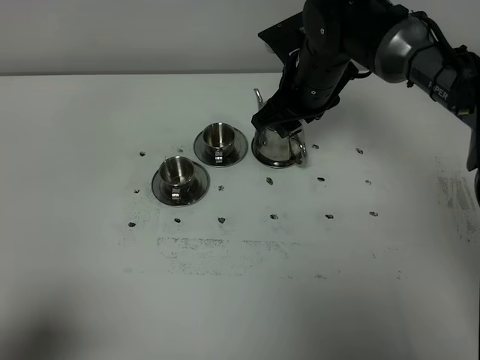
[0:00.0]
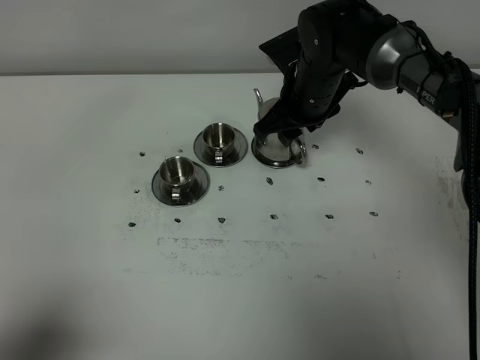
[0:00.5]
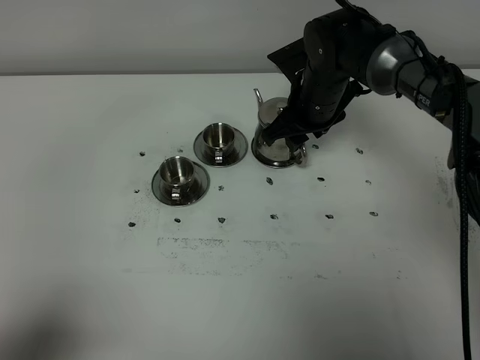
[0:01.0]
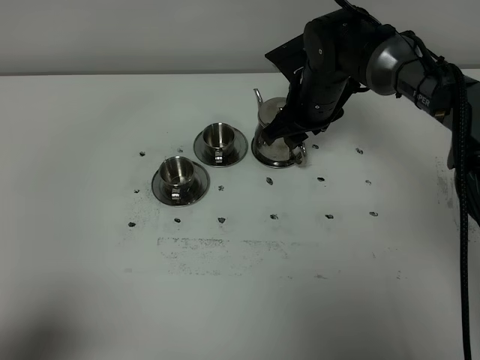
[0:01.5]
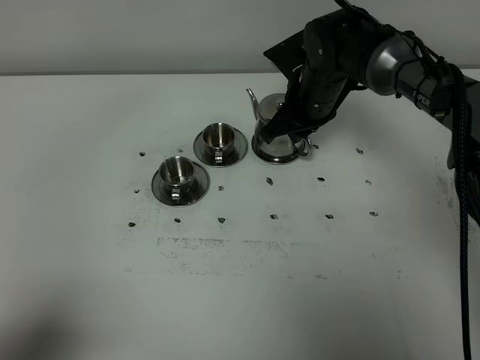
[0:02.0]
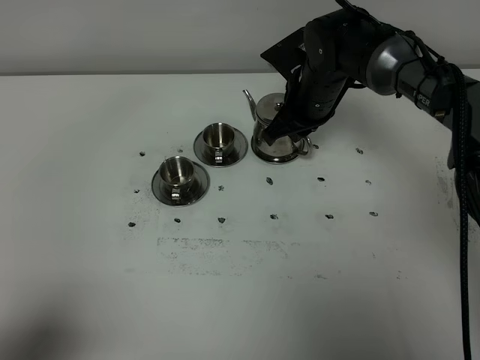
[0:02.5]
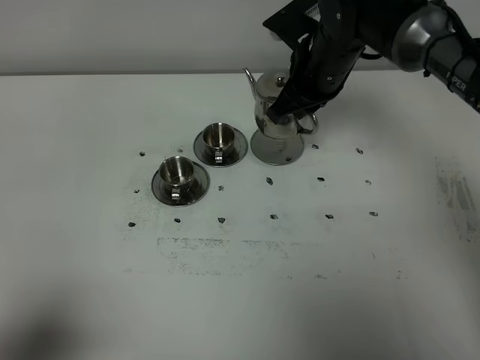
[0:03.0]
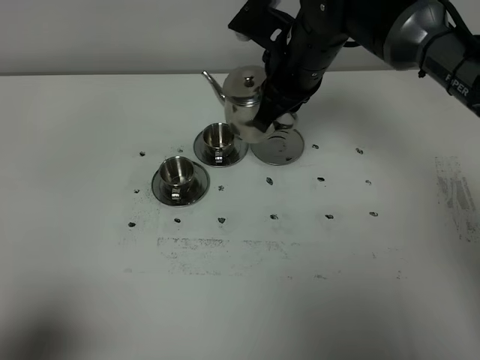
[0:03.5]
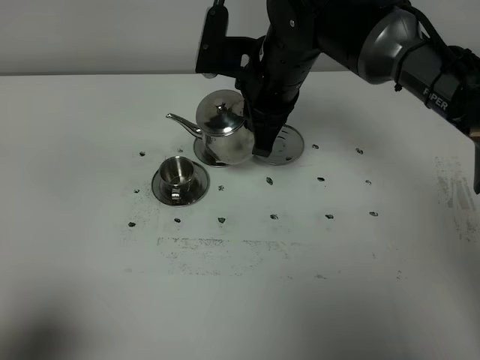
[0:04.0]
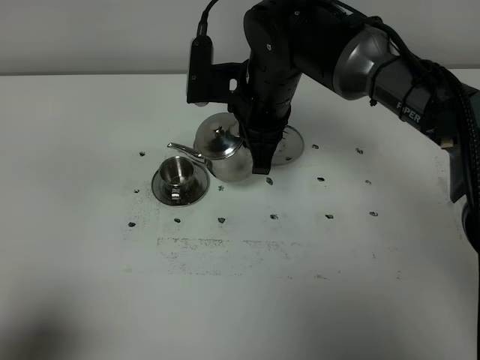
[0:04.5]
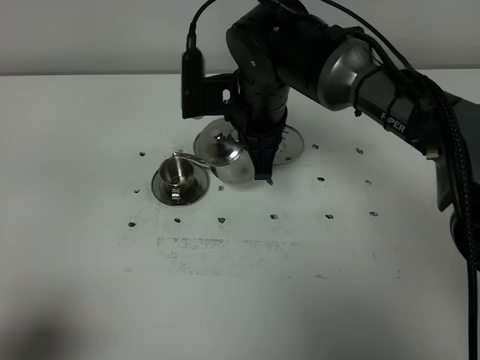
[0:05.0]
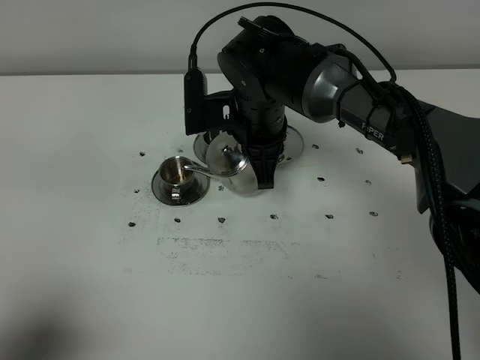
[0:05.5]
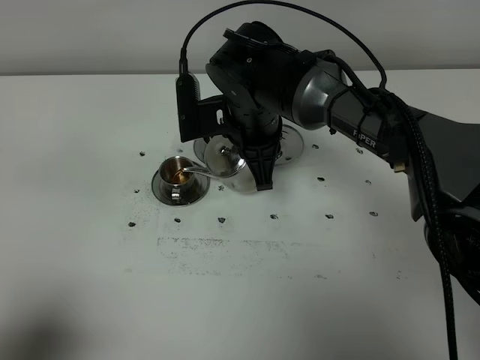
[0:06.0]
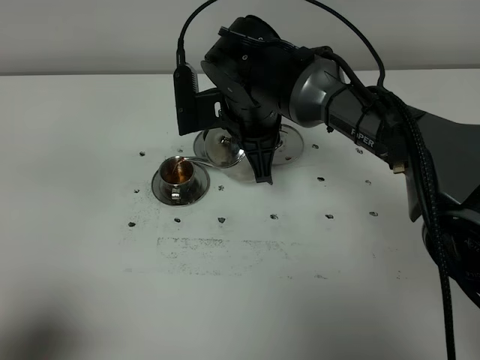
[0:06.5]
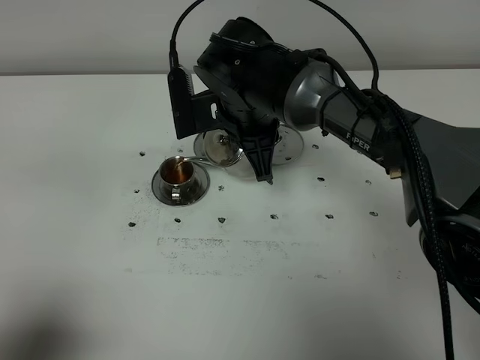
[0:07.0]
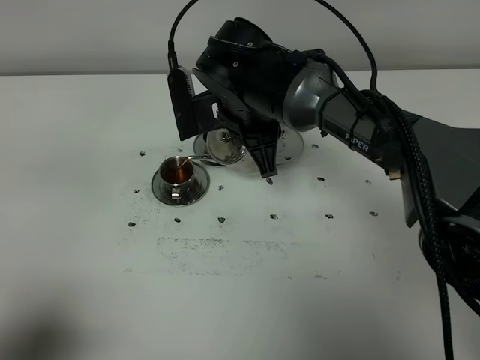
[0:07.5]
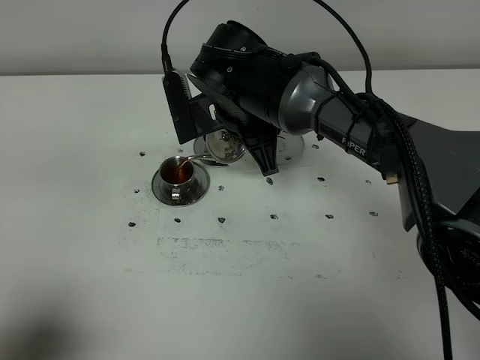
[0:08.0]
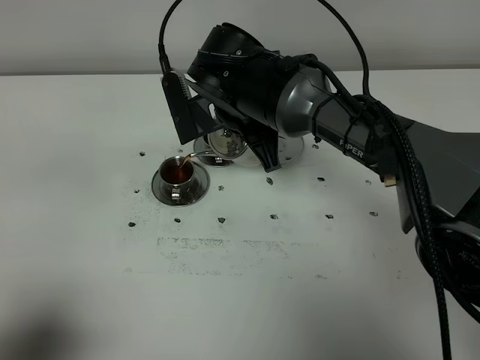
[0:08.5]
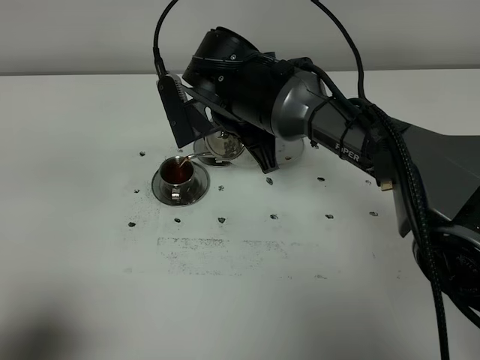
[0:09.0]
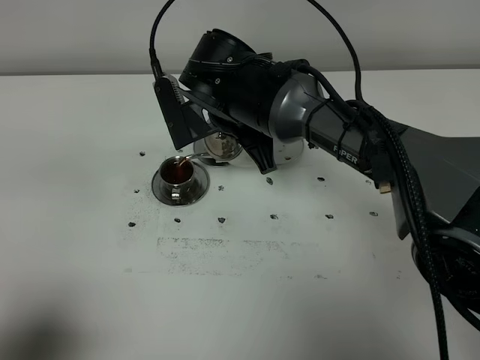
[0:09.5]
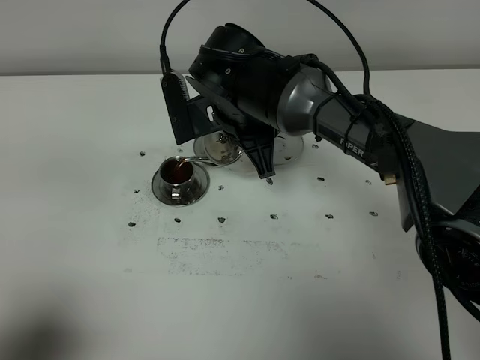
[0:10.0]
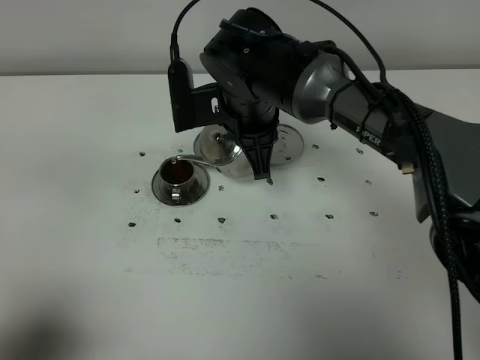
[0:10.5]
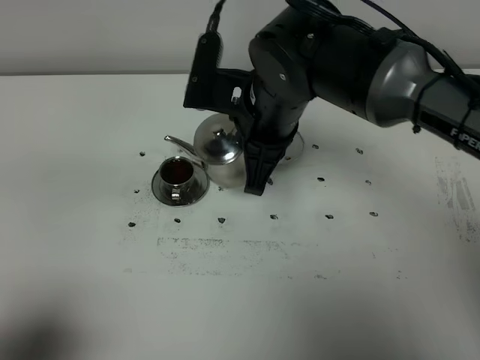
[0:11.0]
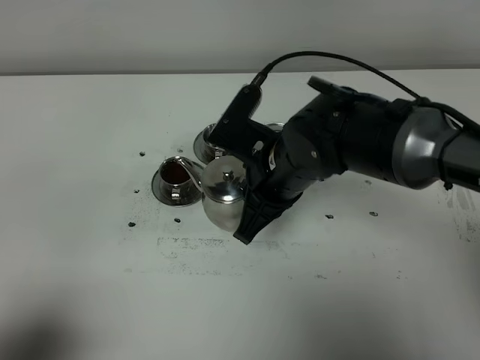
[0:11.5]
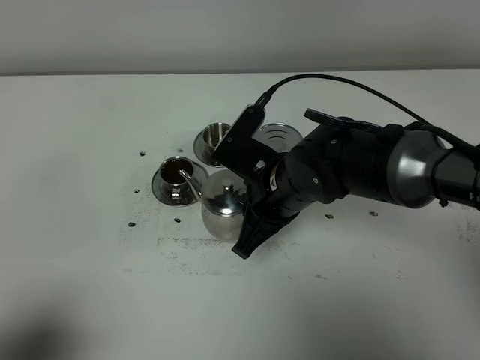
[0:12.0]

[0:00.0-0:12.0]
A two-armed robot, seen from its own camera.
Task of the whole recording: grasp the stainless steel teapot and pour the tea into the two stainless steel teacups one by one, put the stainless steel teapot back in its original place.
Step, 0:00.0 to 0:02.5: Pick up the teapot with the right gripper.
0:00.0 to 0:02.0: The right gripper closes up.
0:02.0 to 0:04.0: The right gripper shifts some 10 cm upward, backward and to the left.
0:04.0 to 0:06.0: The right gripper changes place by some 5 cm.
0:06.0 to 0:10.0: There are only small adjustments of the grippers.
0:10.0 to 0:12.0: The right gripper goes approximately 10 cm backward and to the right.

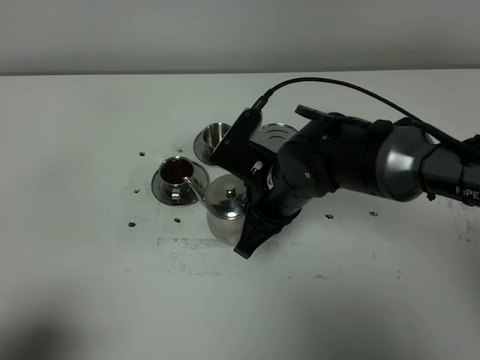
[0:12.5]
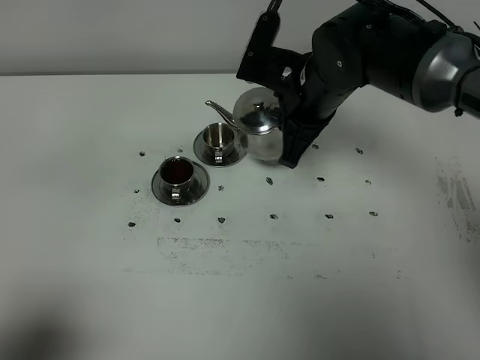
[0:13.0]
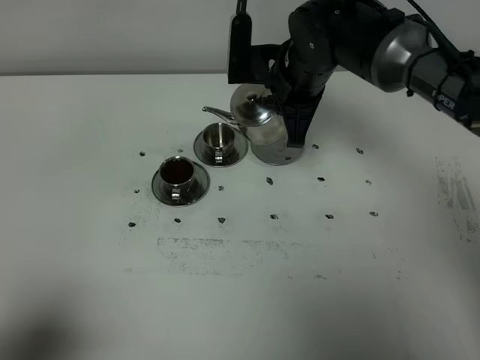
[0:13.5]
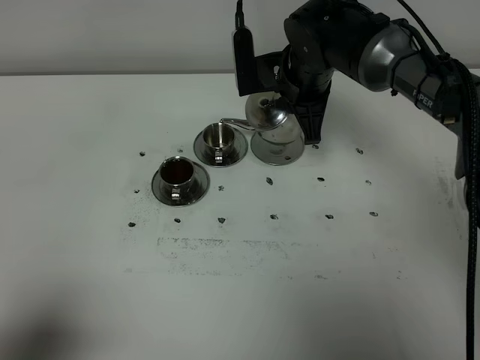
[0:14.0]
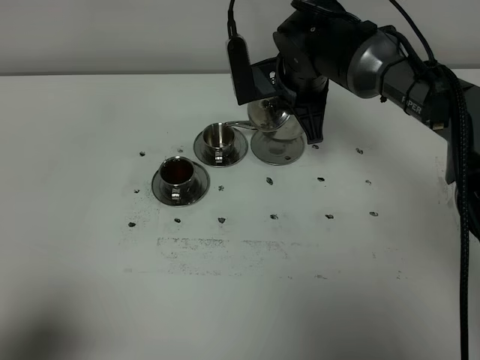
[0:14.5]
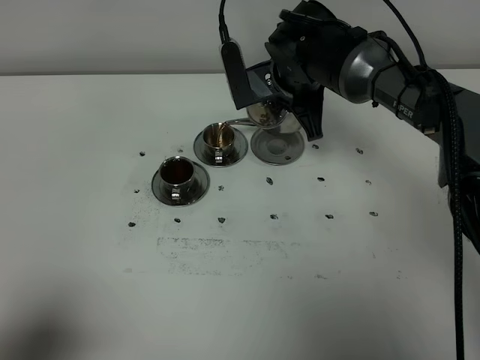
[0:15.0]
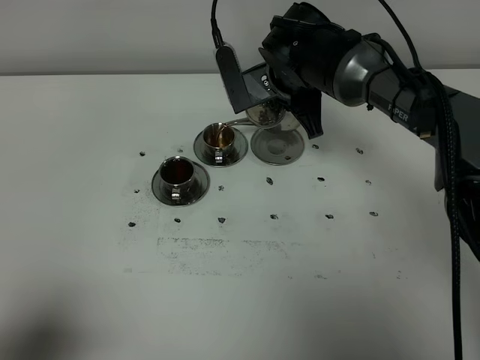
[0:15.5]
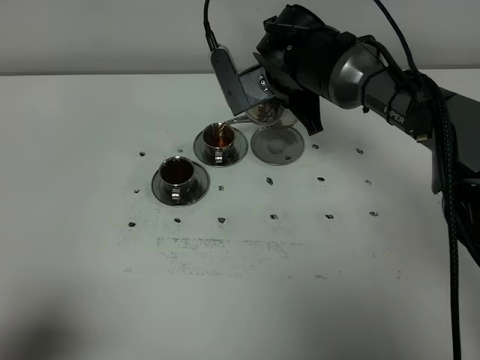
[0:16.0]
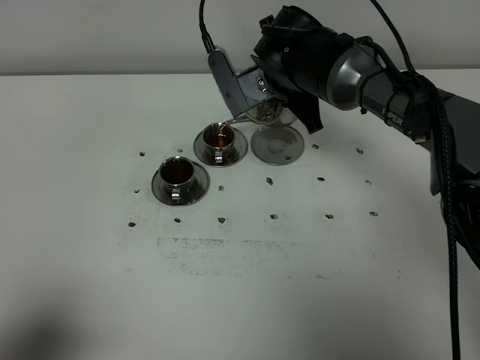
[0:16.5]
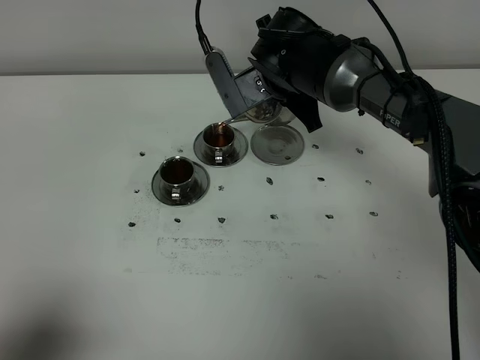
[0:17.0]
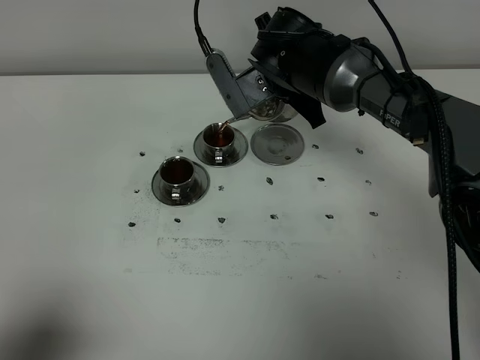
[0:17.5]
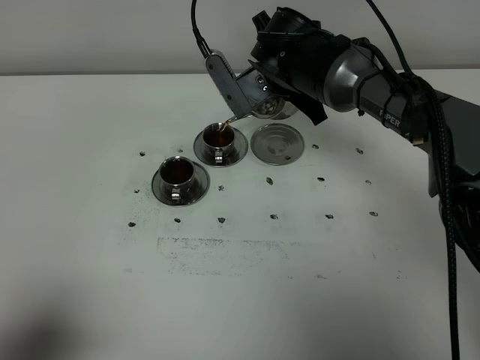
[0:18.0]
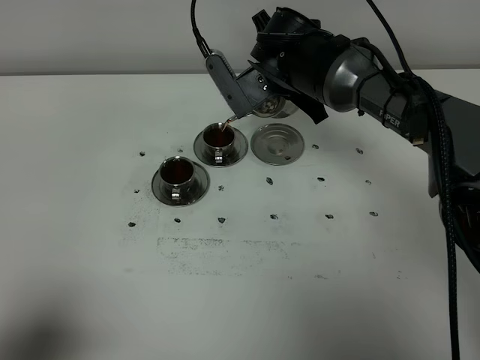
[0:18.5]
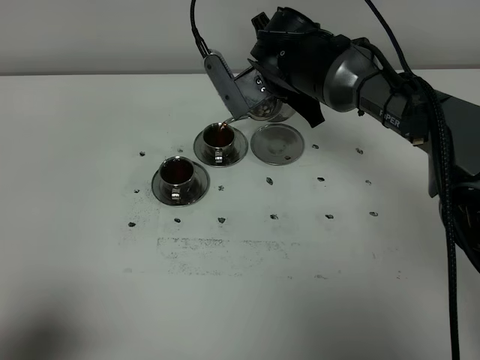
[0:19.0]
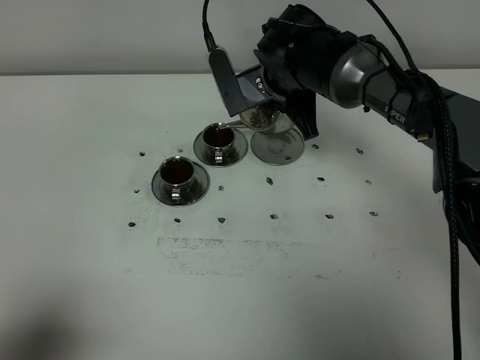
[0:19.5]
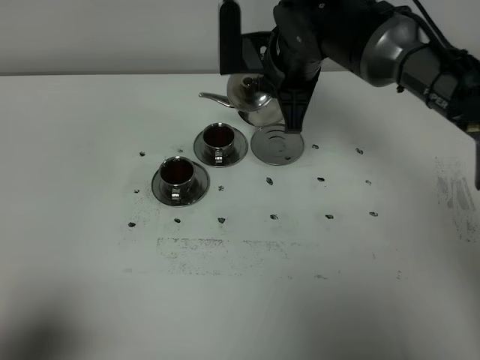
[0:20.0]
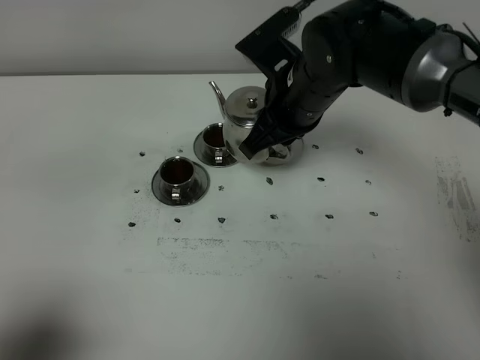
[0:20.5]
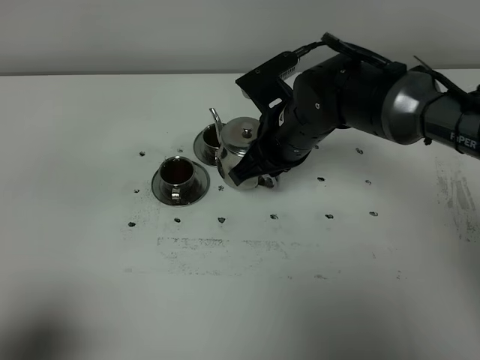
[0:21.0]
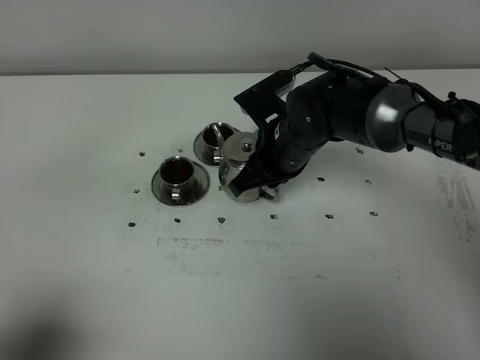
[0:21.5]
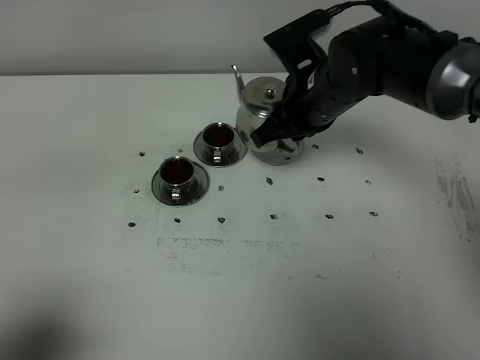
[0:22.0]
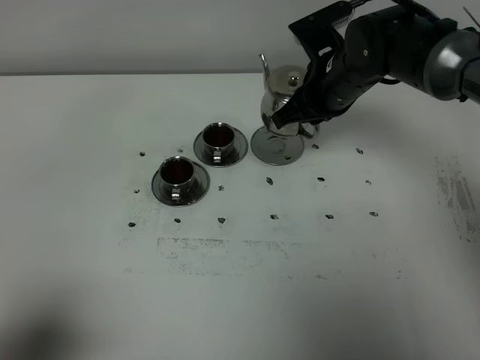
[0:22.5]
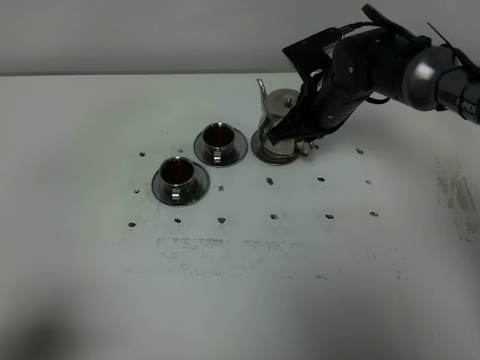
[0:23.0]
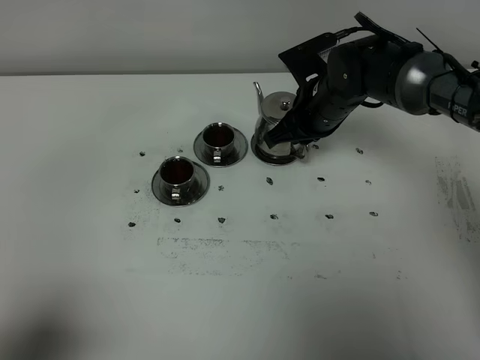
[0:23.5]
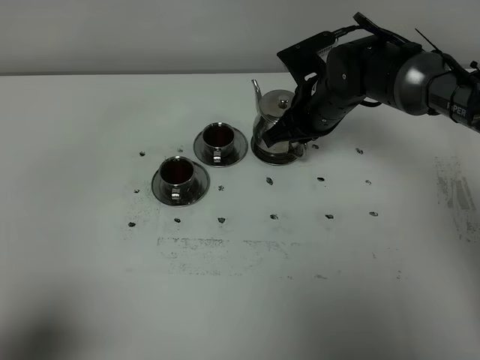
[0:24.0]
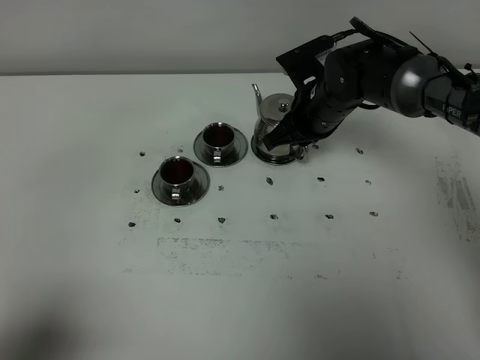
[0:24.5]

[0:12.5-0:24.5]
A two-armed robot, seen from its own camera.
Task of the whole recording: grasp the stainless steel teapot and pour the tea into the two stainless steel teacups one by one, put the stainless steel teapot back in its original place.
Step, 0:12.5 to 0:19.5: Pour tea into the teacup with the right gripper.
0:12.5 to 0:14.5: The right gripper shifts about 15 cm forward.
0:14.5 to 0:16.5: There are only small adjustments of the grippers.
0:16.5 to 0:18.5: There are only small adjustments of the grippers.
0:18.5 to 0:20.5: The right gripper moves backward, about 10 cm.
0:20.5 to 0:22.5: The right gripper moves forward, roughly 5 cm.
0:22.5 to 0:24.5: There are only small adjustments of the grippers.

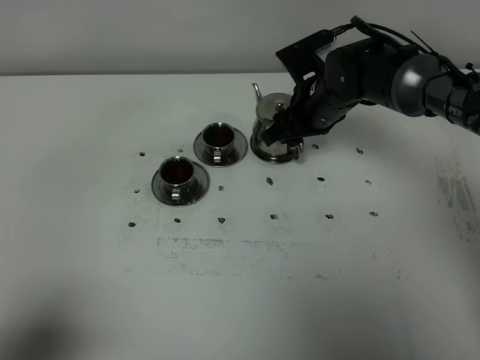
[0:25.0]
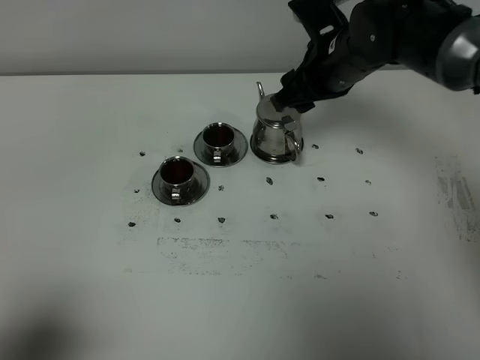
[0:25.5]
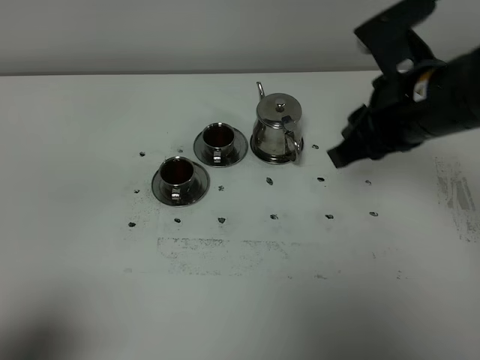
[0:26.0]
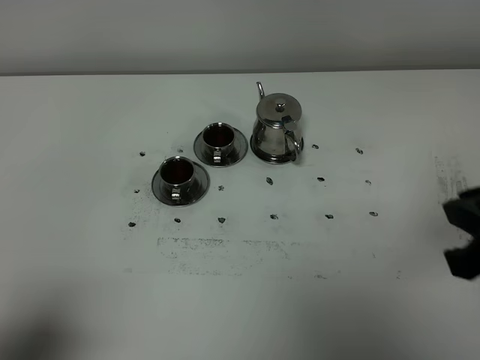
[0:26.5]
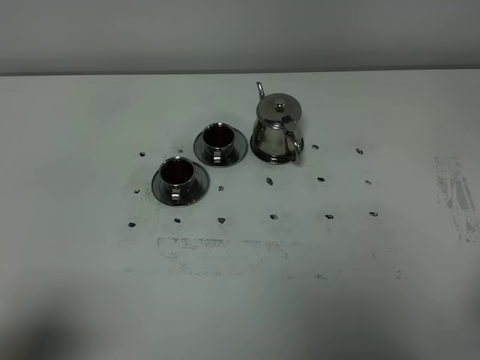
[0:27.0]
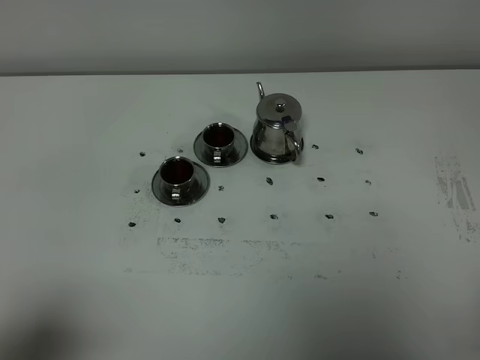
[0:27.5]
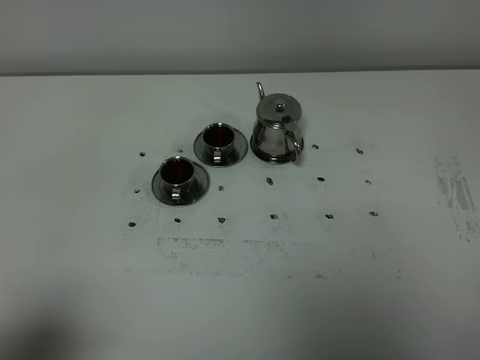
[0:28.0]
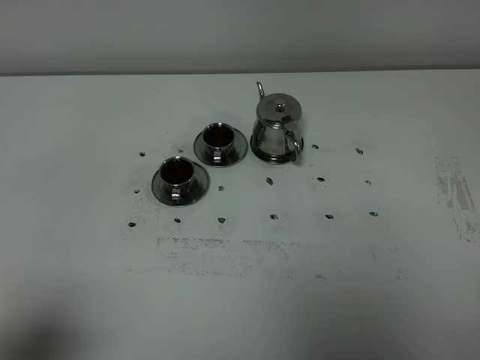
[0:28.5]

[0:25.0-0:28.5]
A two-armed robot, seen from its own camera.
Task of the whole recording: grasp the stainless steel teapot and pour the tea into the two stainless steel teacups one by one, put the stainless steel teapot back in its original place.
0:25.0 to 0:27.0: The right gripper is displaced backward and to the right by some 40 cm, and closes.
